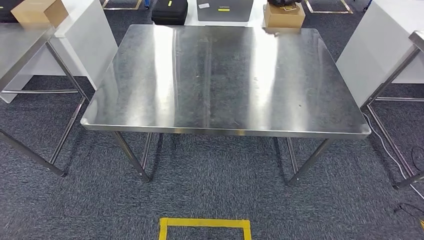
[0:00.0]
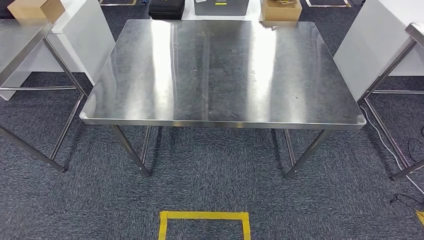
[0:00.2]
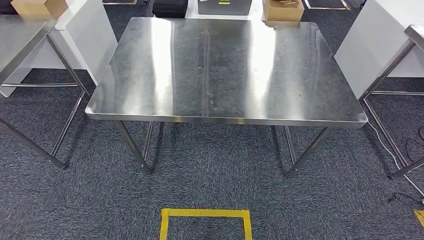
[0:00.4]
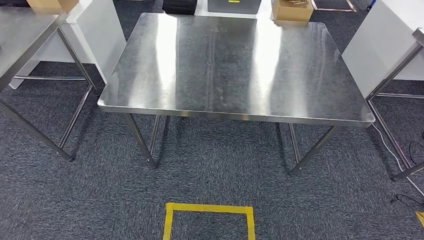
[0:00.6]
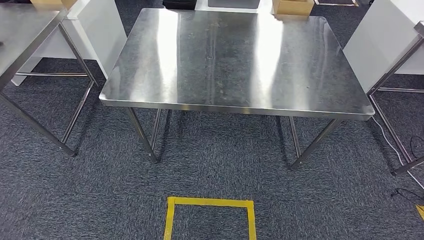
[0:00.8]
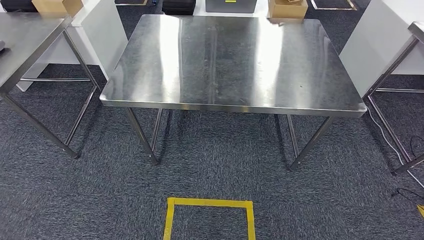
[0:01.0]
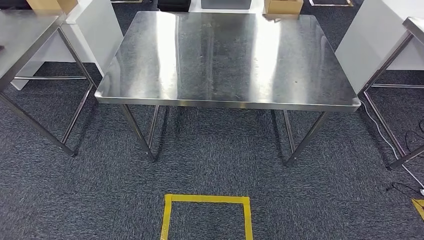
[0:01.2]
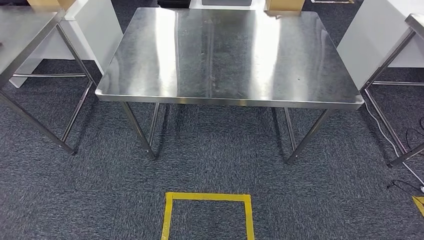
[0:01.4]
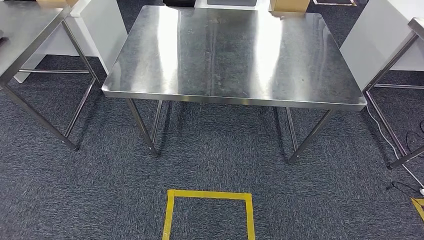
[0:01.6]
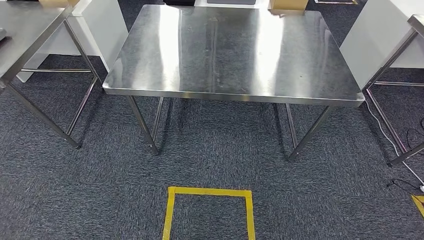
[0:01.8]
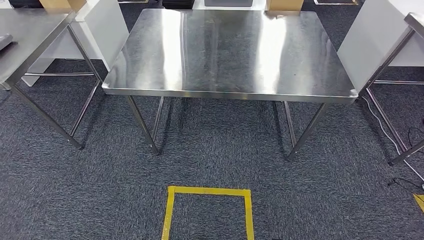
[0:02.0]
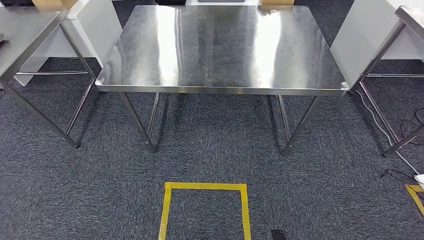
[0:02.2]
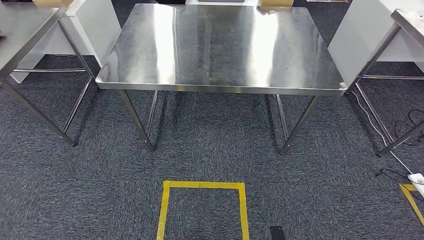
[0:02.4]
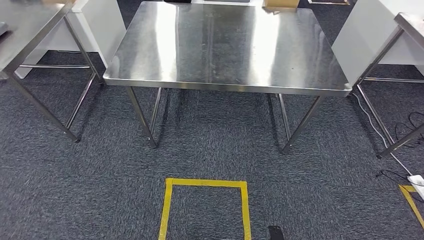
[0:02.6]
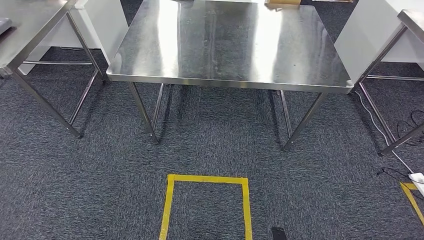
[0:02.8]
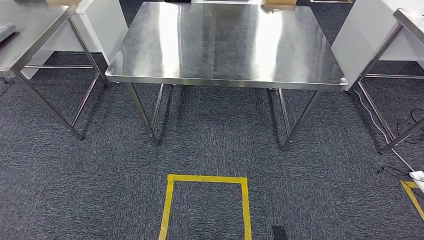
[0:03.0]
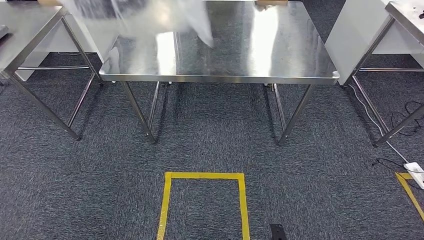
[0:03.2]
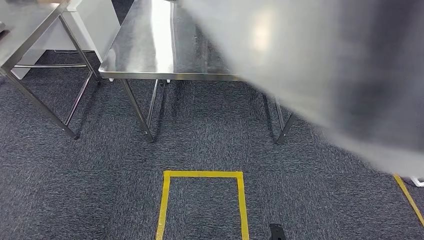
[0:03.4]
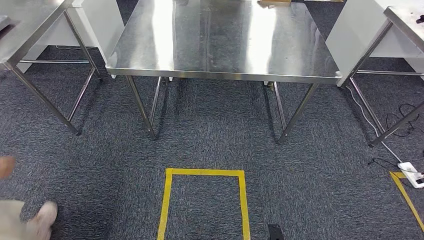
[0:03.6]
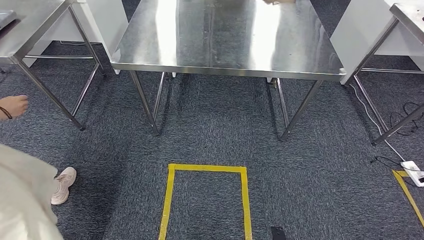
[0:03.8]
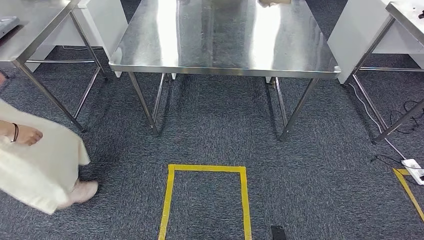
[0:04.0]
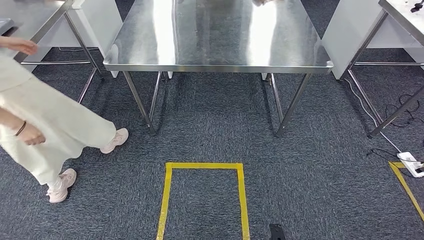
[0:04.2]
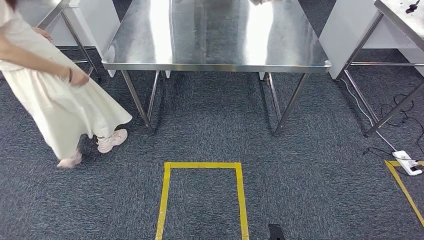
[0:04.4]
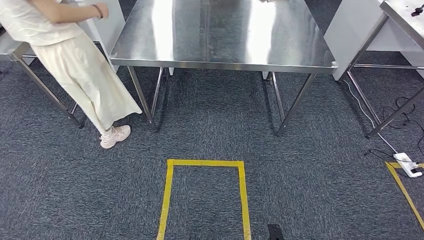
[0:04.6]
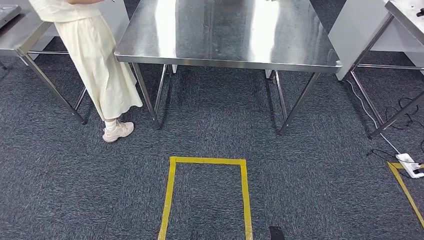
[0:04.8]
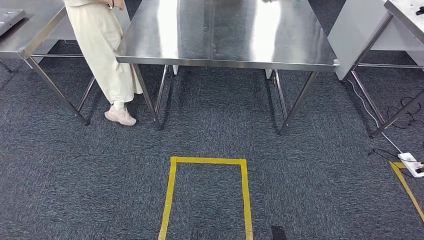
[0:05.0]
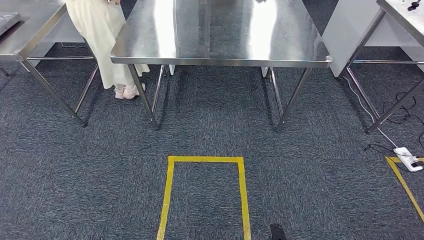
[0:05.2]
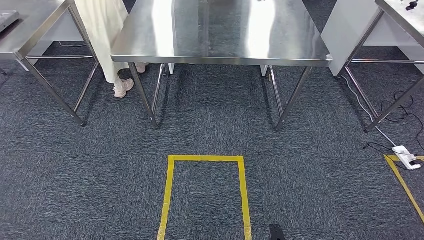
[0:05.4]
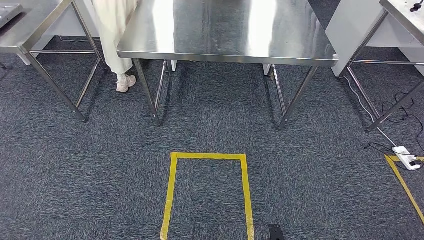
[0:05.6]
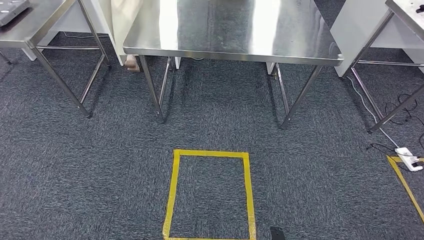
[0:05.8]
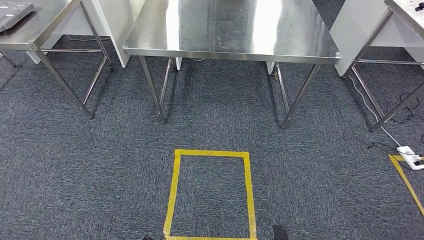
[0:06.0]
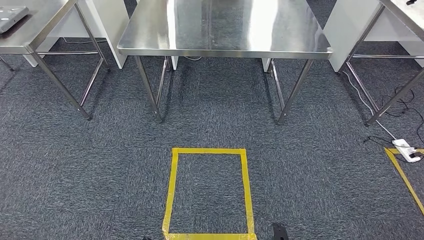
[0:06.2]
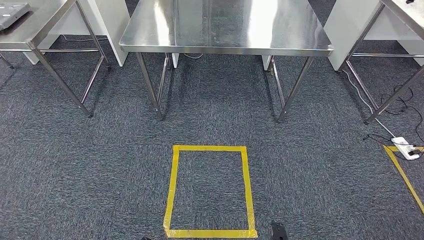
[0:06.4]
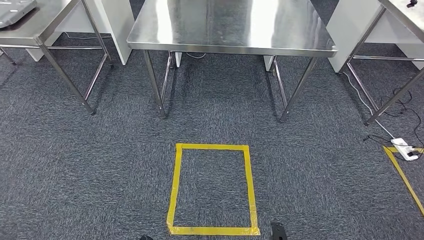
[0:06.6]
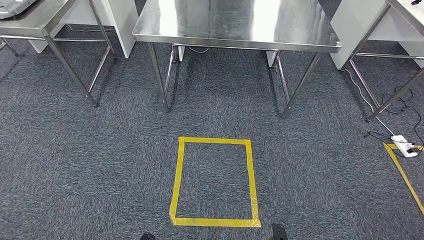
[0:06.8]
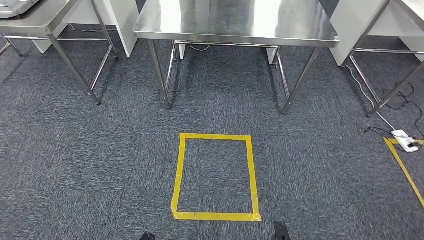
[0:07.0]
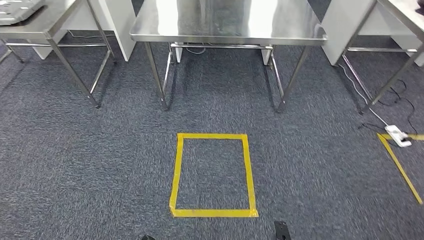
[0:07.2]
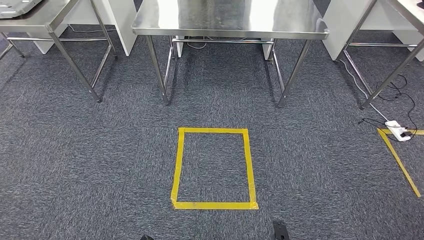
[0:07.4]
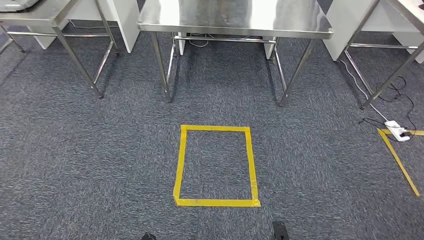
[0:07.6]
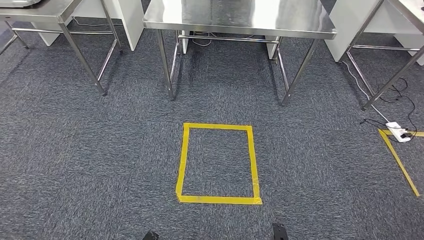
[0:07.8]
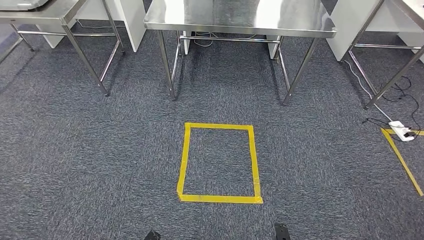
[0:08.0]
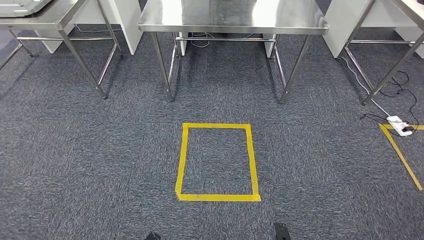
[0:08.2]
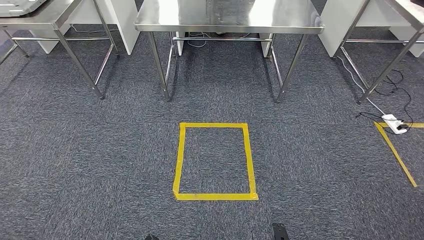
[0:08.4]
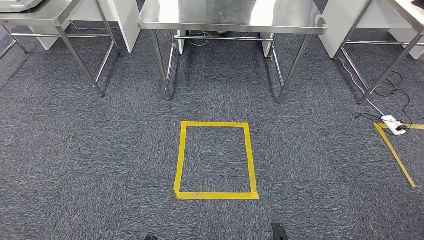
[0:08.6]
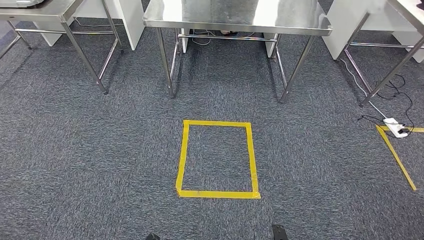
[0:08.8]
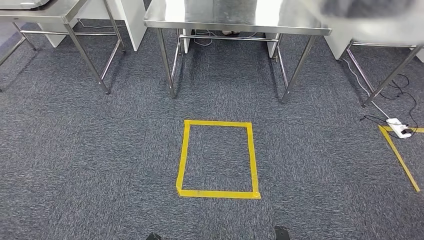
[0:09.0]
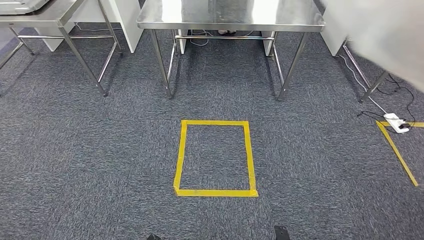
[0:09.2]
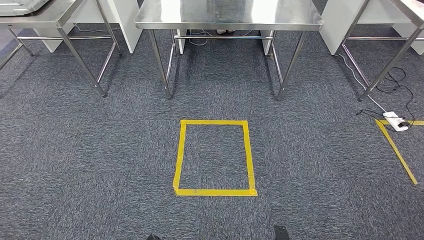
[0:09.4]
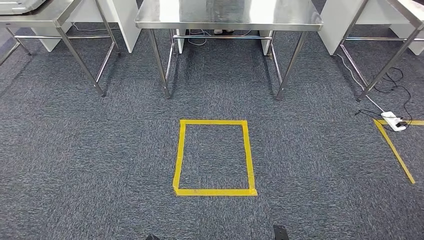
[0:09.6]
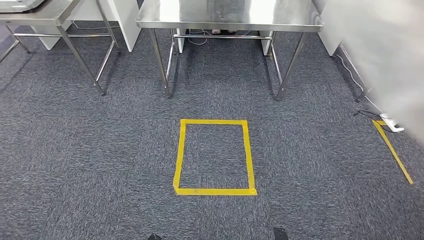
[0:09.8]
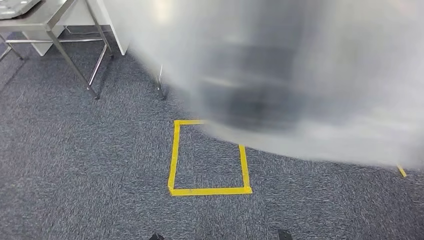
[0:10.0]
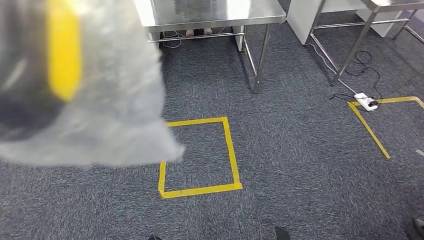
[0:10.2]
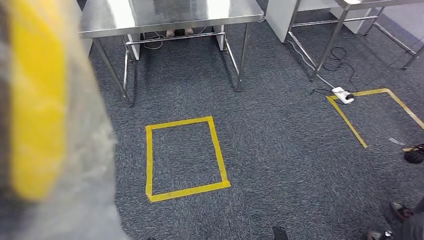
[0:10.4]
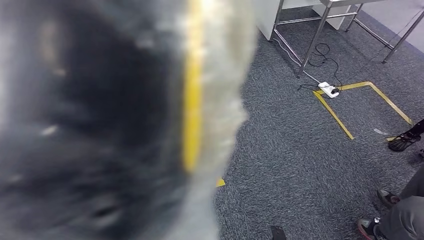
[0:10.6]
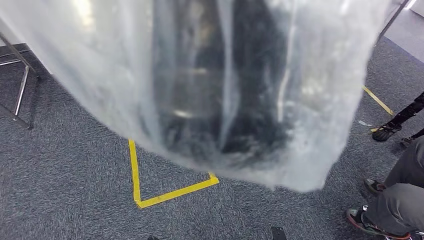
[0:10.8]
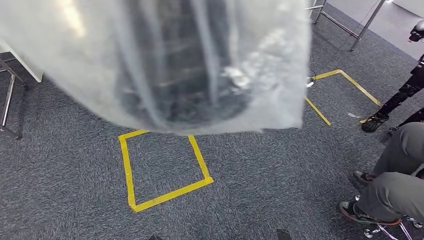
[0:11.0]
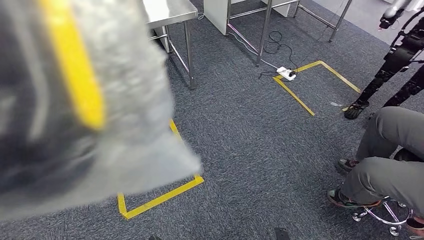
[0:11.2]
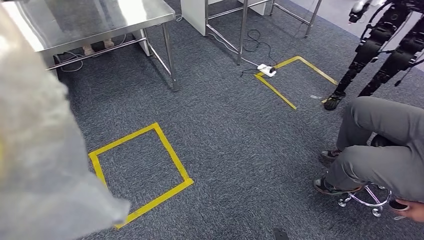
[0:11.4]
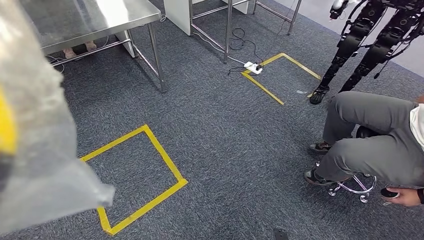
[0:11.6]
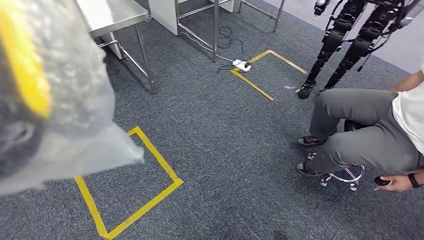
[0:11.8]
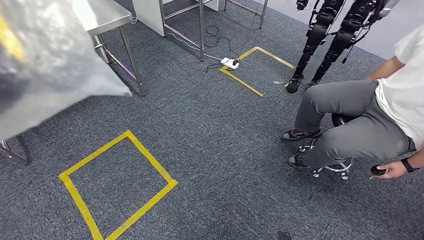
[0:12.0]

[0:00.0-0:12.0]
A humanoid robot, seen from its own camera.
0:01.6 to 0:03.0: The right hand heads forward, covering roughly 10 cm.
0:07.6 to 0:09.0: Both hands stay about where they are.

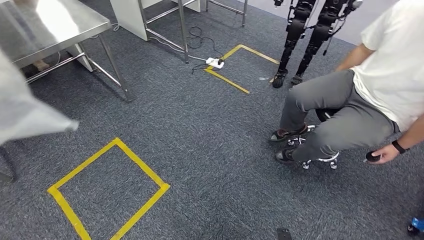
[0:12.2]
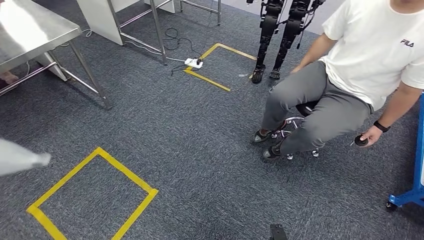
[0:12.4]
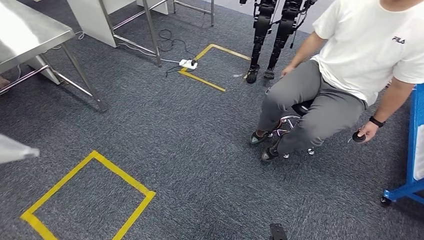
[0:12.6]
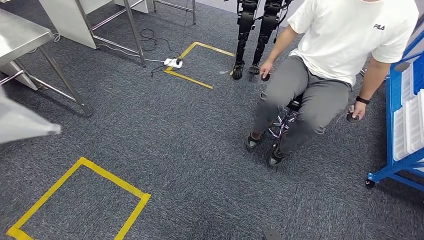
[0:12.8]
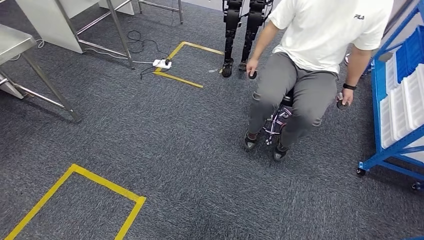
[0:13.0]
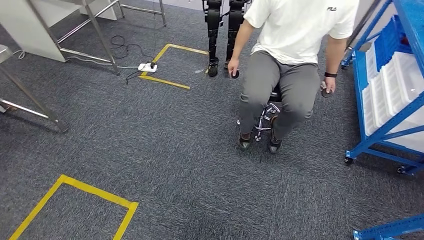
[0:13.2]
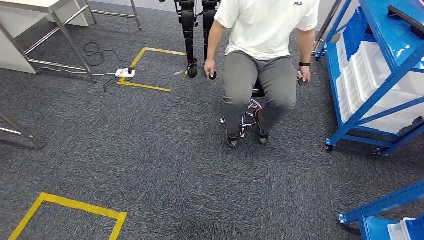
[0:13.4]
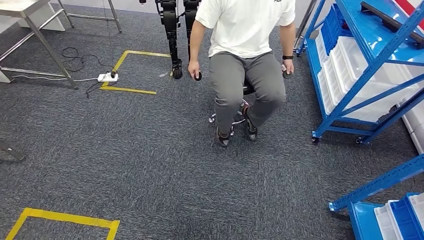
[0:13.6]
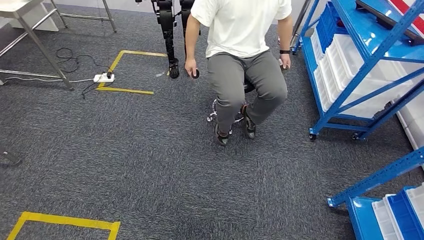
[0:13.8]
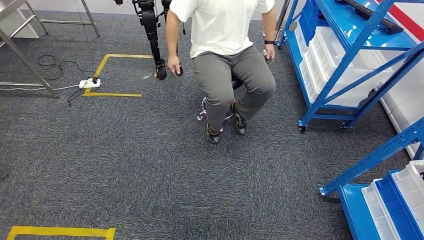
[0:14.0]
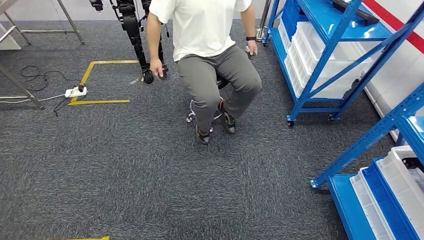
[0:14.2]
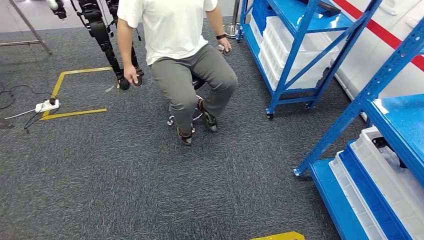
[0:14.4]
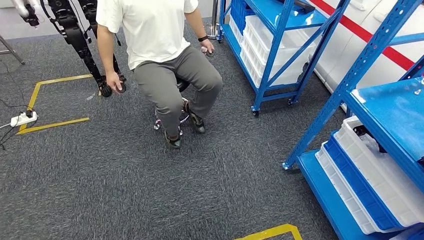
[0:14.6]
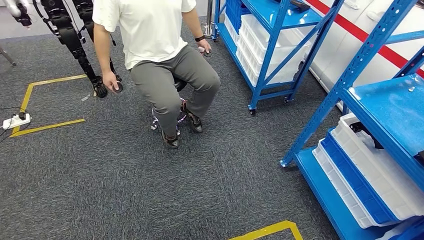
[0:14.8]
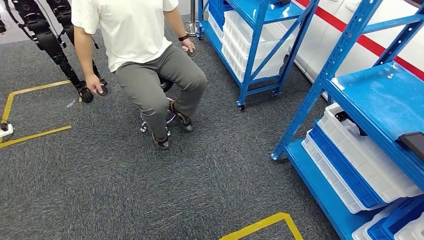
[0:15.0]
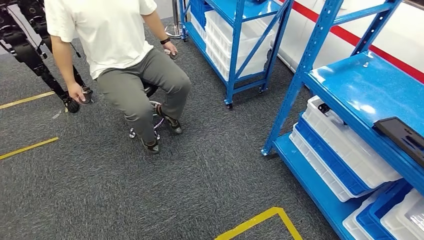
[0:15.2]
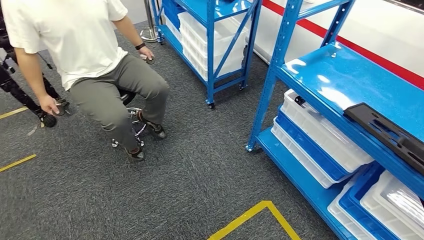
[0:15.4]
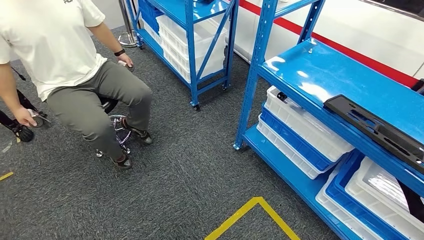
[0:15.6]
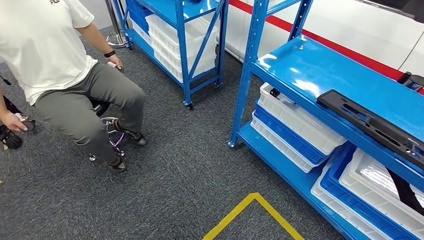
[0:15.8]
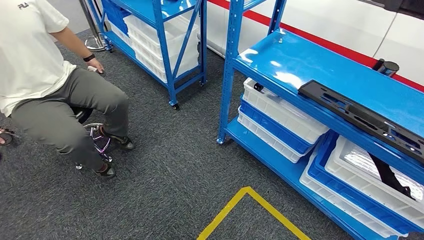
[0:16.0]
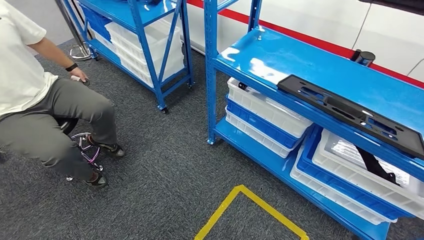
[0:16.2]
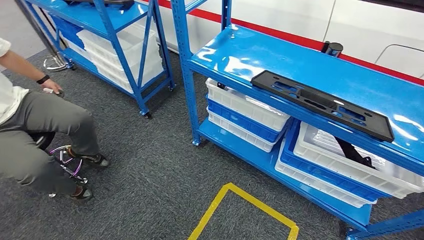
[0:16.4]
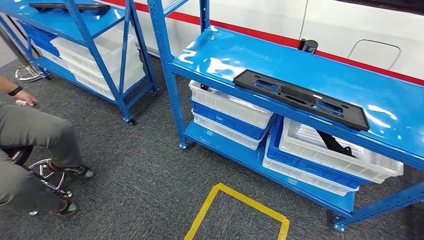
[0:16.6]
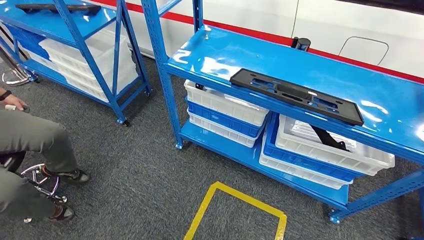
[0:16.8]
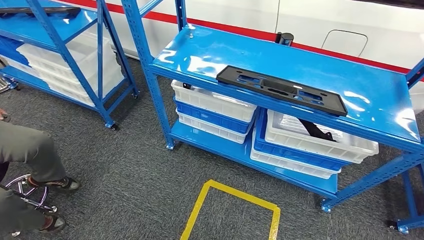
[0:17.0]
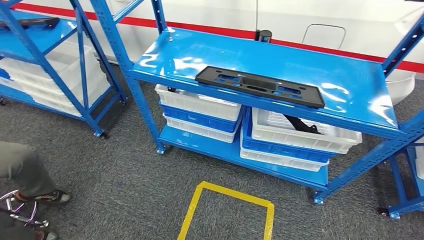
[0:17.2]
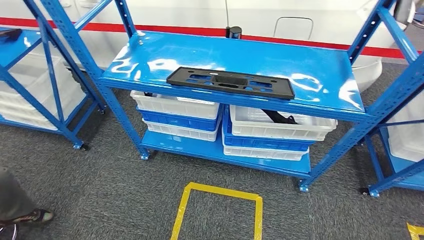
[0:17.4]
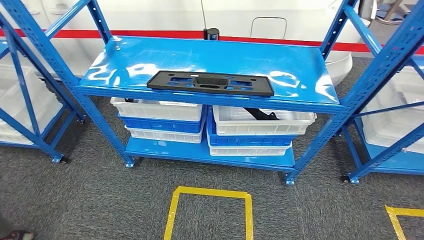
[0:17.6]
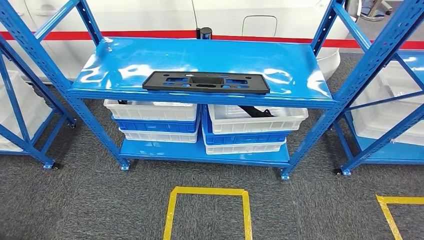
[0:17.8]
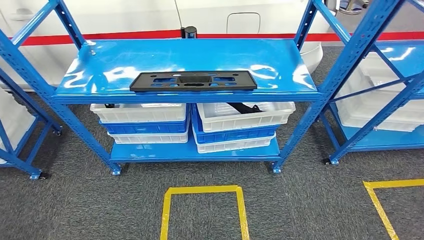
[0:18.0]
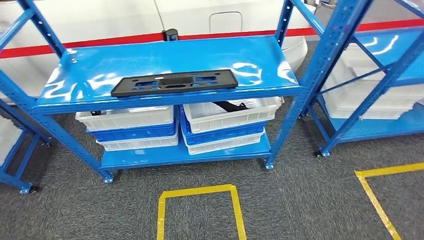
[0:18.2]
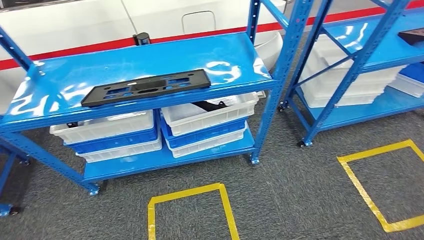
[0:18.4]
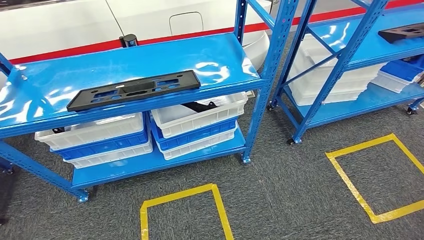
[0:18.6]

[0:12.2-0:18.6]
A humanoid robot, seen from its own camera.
Step, 0:12.2 to 0:18.4: Move to the initial position of the shelf.
